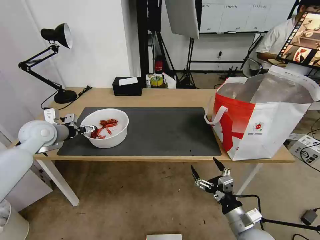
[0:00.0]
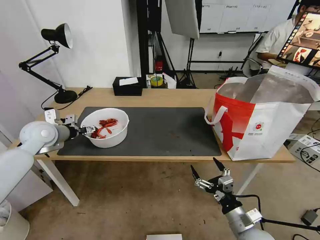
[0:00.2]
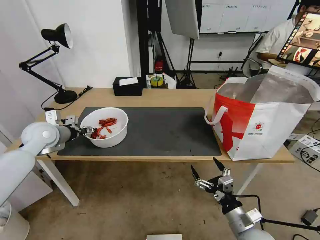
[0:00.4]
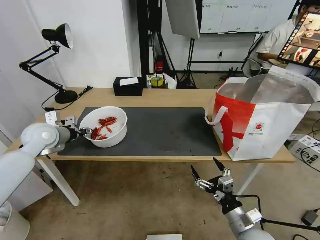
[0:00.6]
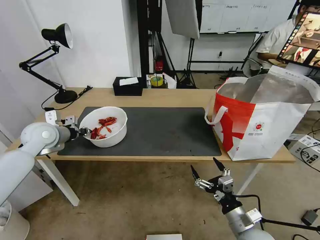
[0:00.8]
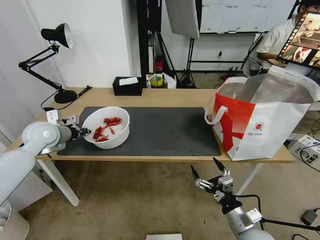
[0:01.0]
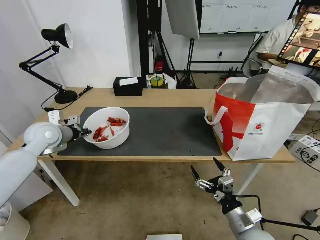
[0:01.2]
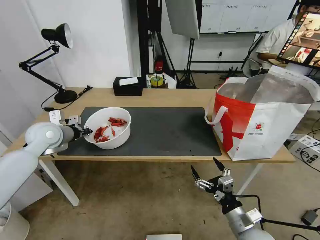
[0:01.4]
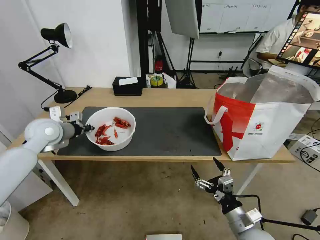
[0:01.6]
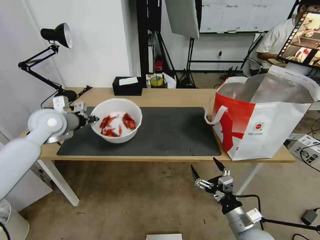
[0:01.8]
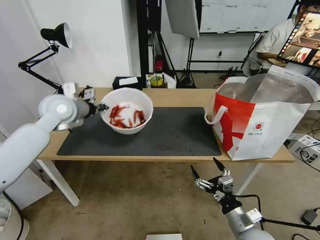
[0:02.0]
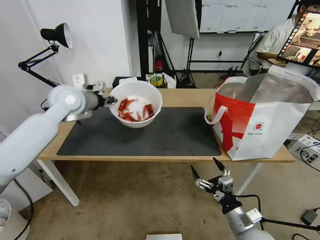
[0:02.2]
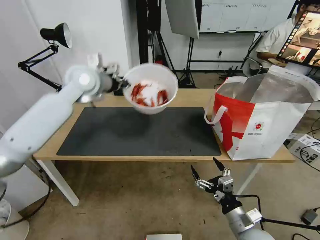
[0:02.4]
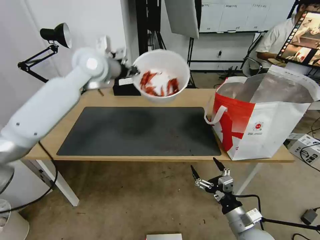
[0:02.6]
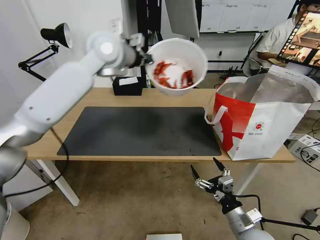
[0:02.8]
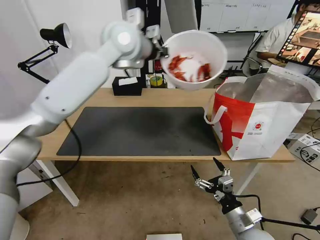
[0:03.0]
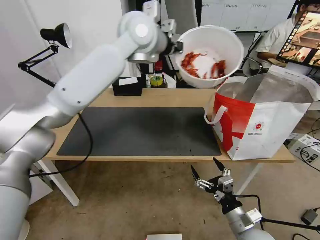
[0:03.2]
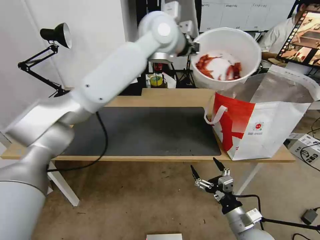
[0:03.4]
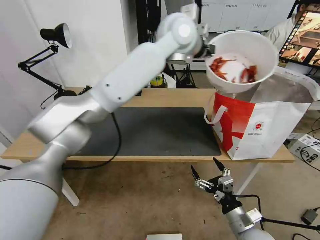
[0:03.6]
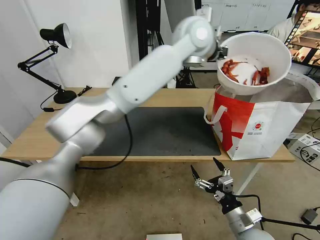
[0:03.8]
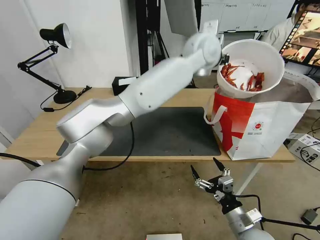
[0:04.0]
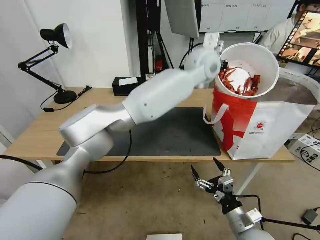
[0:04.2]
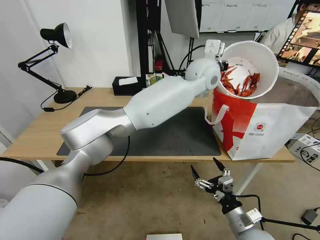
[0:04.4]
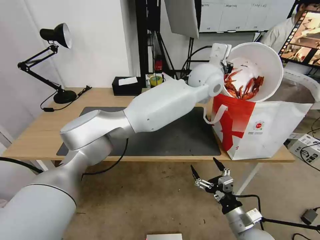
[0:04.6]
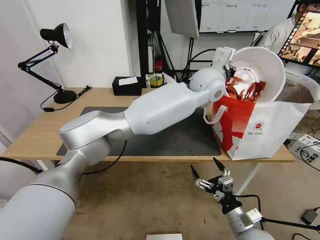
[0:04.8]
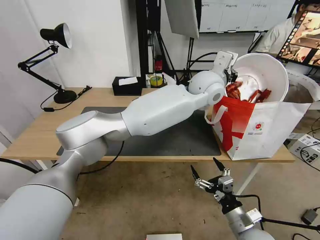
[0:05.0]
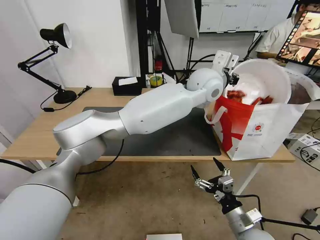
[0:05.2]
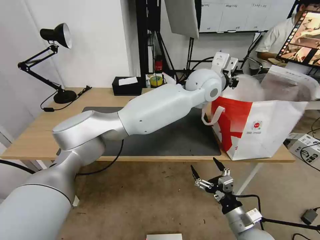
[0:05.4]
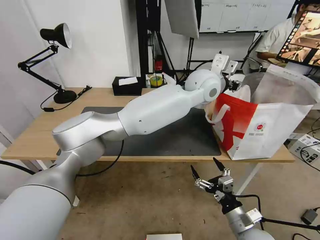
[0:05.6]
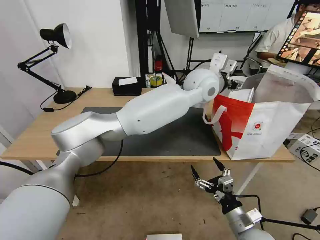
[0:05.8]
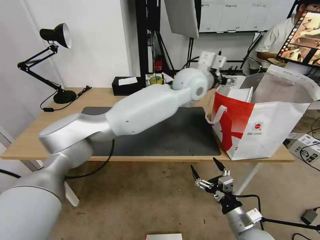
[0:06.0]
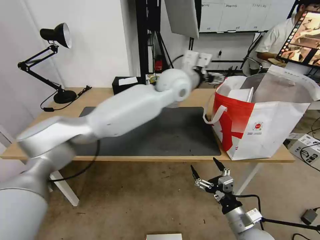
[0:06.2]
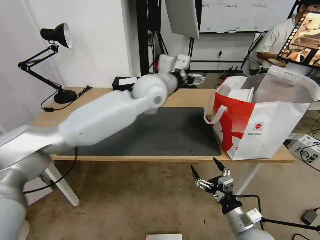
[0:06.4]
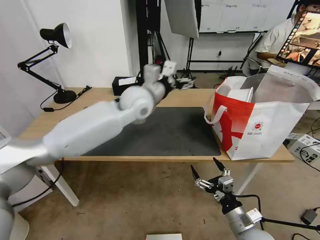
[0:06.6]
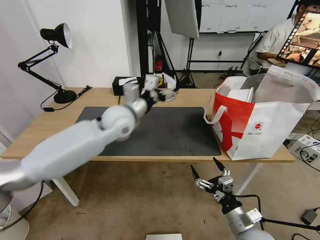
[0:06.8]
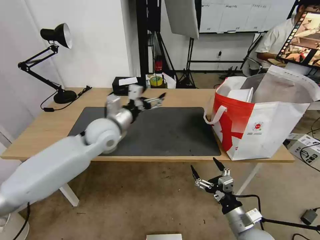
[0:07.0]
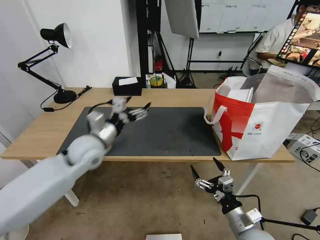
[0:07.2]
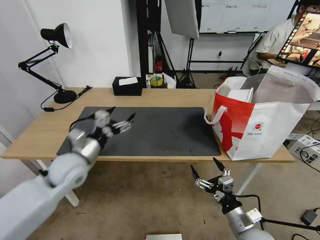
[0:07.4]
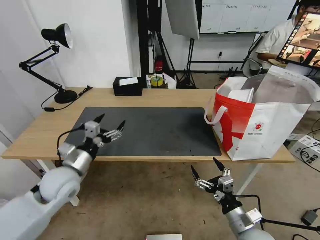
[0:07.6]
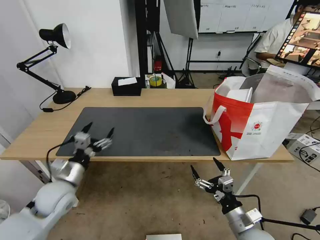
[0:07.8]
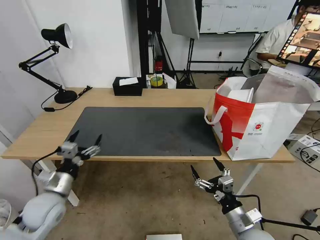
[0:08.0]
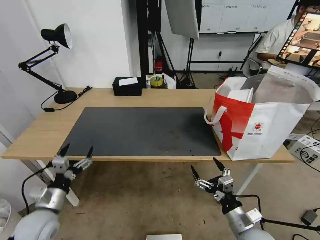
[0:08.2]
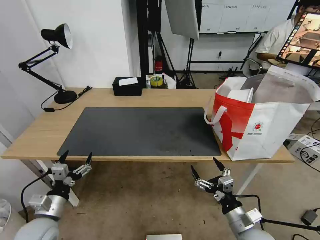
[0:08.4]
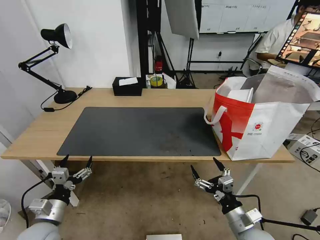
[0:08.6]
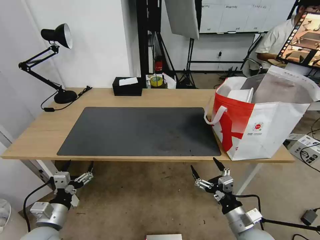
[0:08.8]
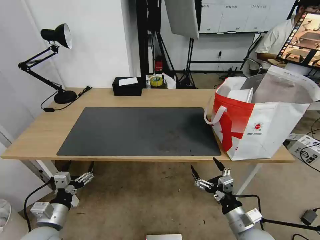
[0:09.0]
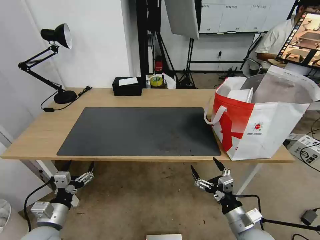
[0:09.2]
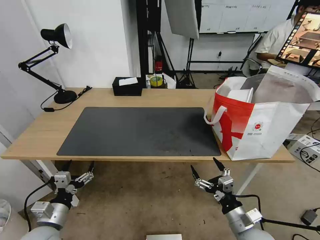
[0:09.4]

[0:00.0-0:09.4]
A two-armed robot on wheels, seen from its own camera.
Task of the whole recording: Pick up the trash from the table and place it into the takeout bag.
0:00.0 to 0:01.6: The left gripper closes up.
0:01.6 to 0:03.2: The left gripper goes roughly 40 cm to the right and upward.
0:03.2 to 0:04.8: The left gripper goes approximately 20 cm to the right and downward.
0:04.8 to 0:06.2: The left gripper shifts approximately 10 cm to the left, and opens.
0:06.2 to 0:07.8: The left gripper is displaced to the left, downward and backward by approximately 50 cm.
0:07.8 to 0:09.4: The left gripper shifts roughly 15 cm backward and downward.
